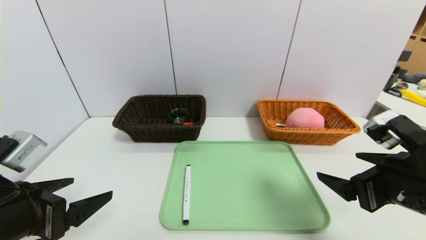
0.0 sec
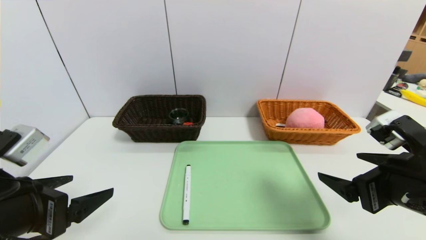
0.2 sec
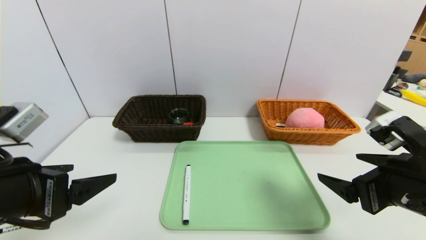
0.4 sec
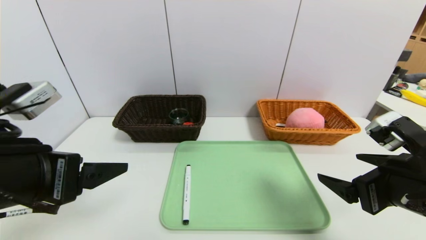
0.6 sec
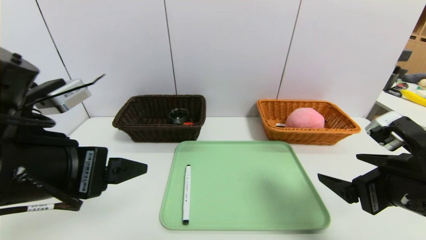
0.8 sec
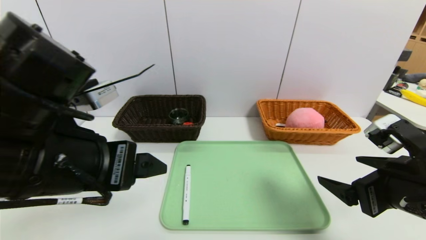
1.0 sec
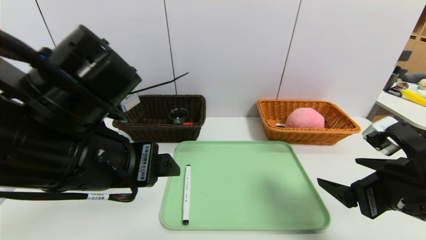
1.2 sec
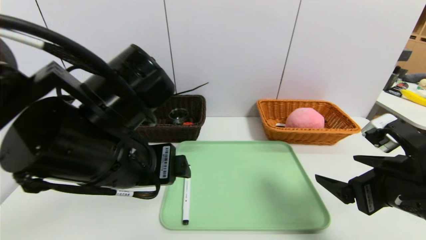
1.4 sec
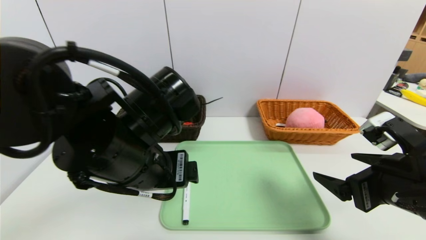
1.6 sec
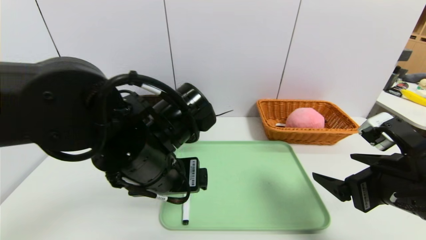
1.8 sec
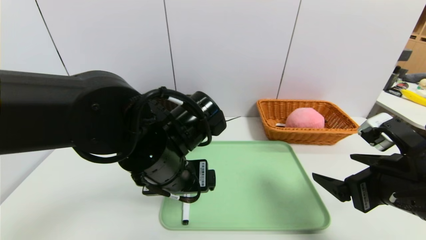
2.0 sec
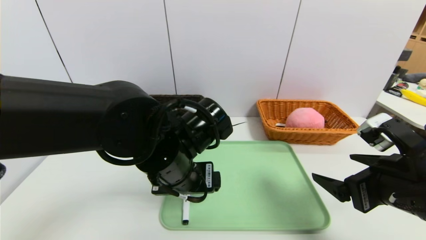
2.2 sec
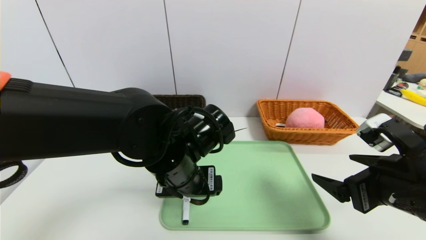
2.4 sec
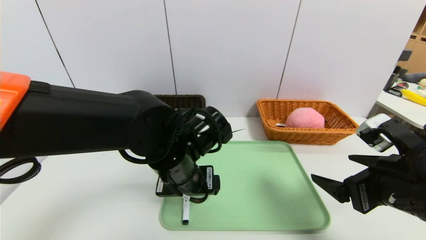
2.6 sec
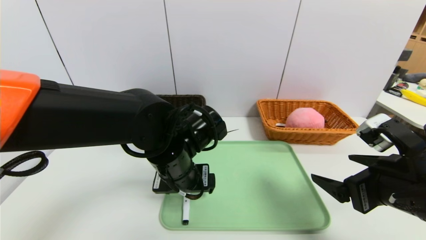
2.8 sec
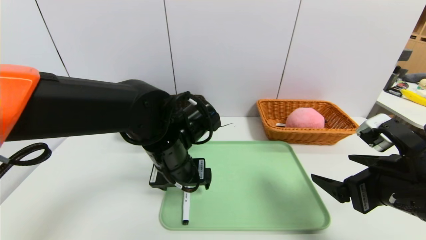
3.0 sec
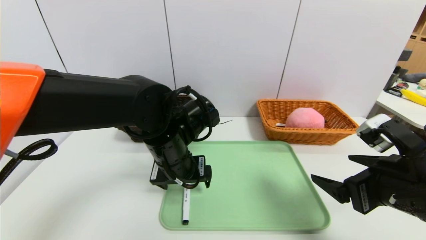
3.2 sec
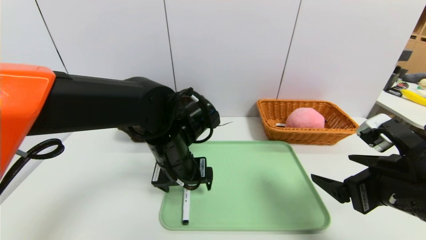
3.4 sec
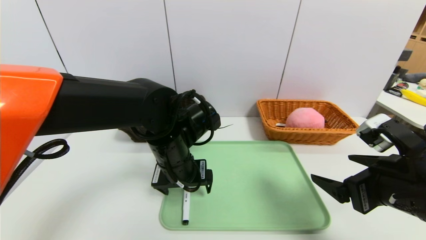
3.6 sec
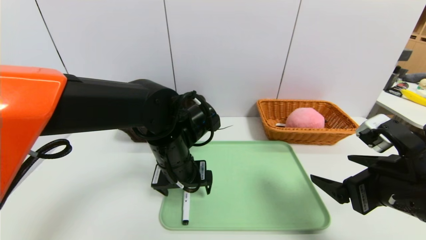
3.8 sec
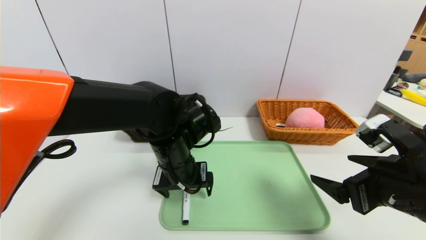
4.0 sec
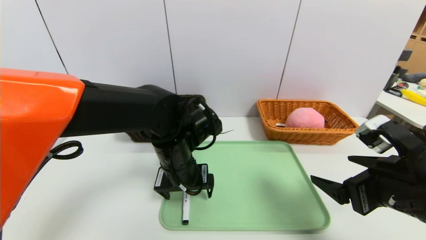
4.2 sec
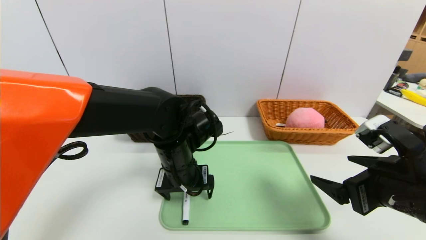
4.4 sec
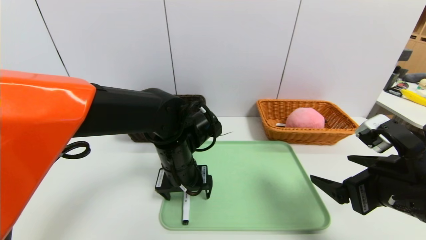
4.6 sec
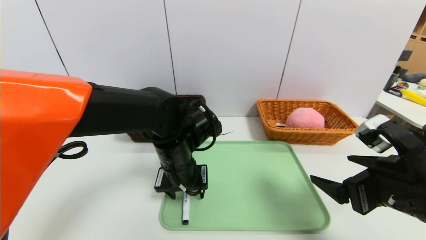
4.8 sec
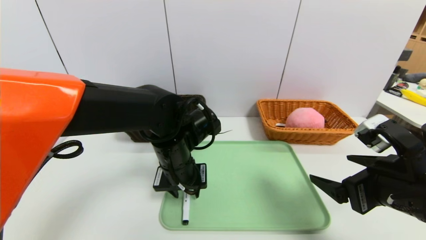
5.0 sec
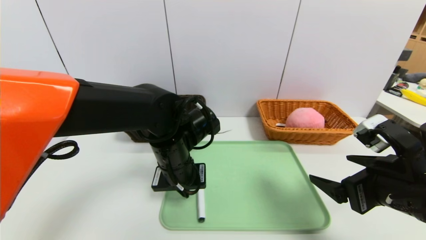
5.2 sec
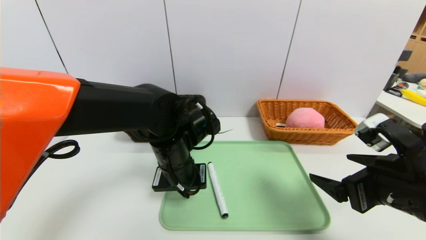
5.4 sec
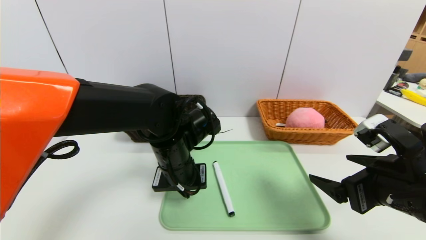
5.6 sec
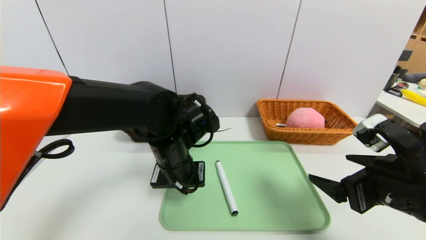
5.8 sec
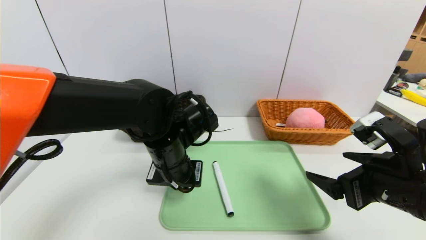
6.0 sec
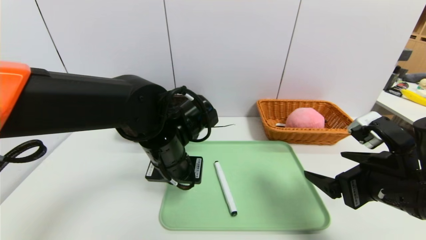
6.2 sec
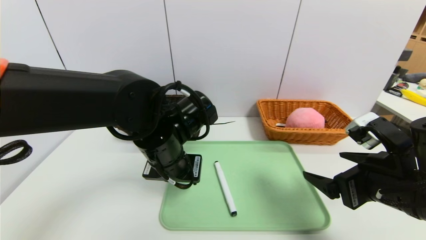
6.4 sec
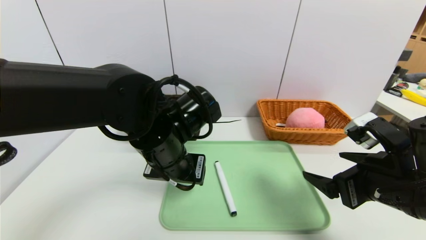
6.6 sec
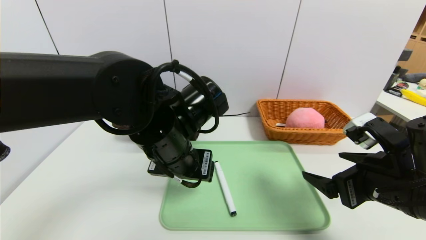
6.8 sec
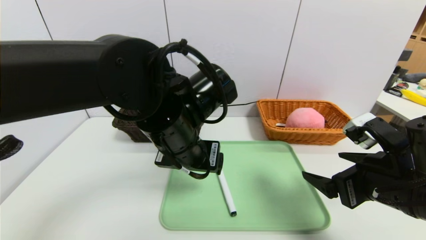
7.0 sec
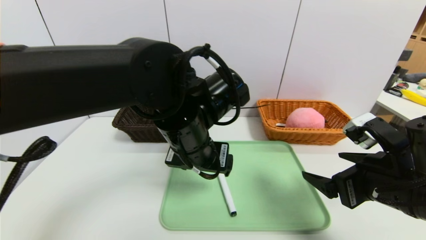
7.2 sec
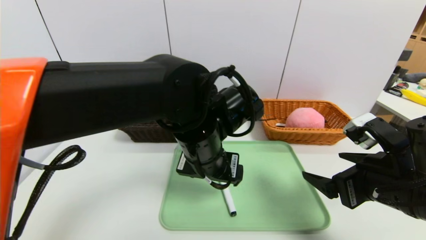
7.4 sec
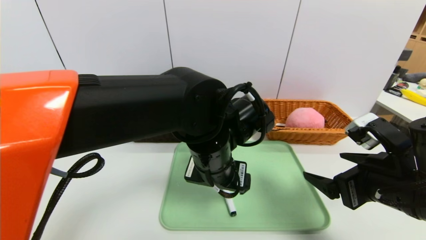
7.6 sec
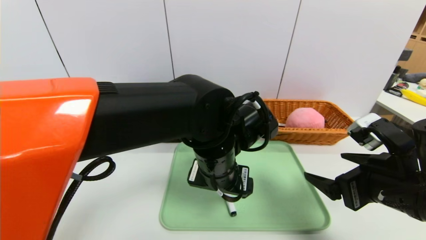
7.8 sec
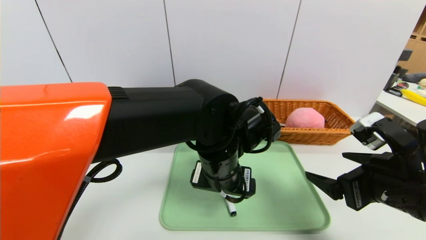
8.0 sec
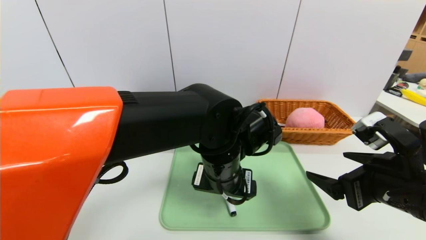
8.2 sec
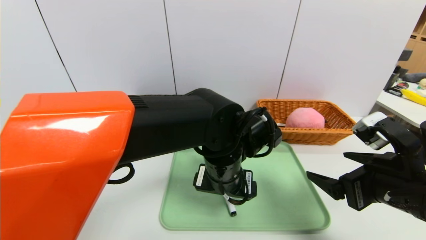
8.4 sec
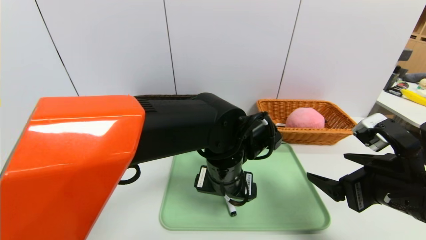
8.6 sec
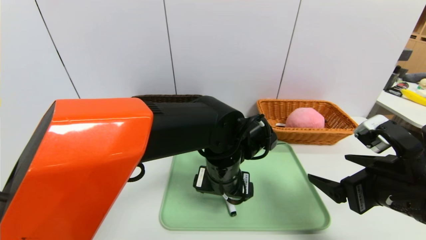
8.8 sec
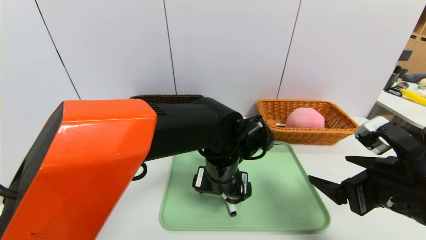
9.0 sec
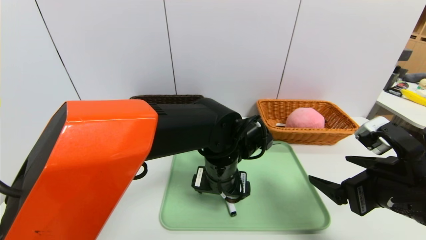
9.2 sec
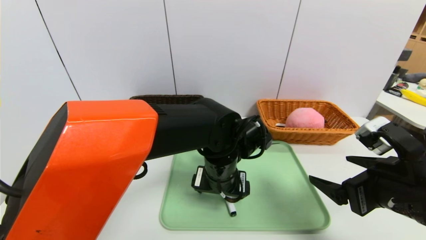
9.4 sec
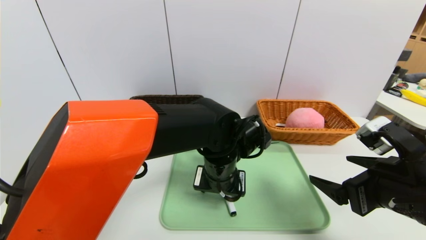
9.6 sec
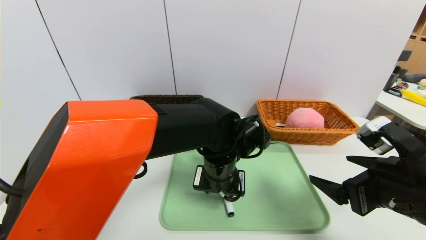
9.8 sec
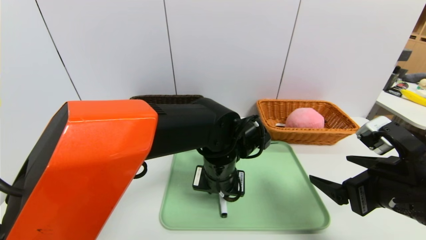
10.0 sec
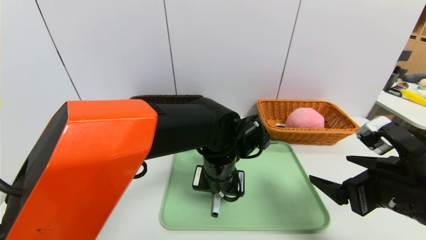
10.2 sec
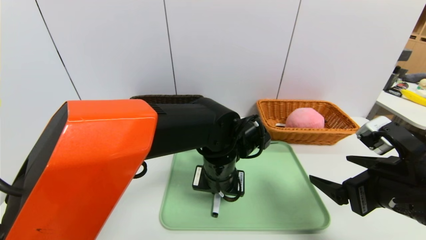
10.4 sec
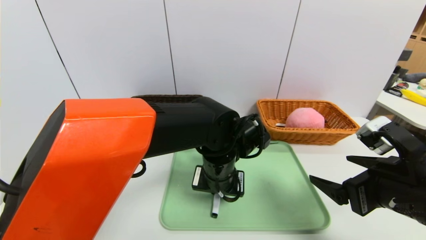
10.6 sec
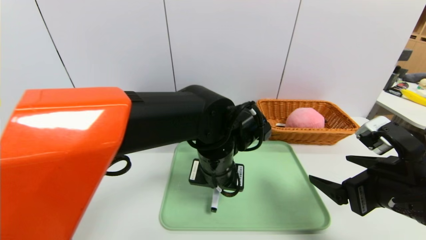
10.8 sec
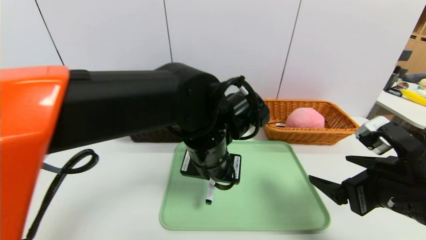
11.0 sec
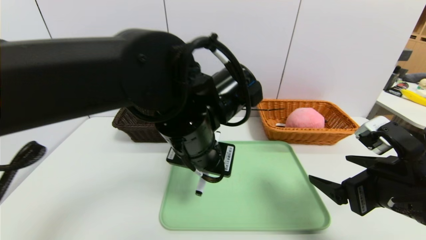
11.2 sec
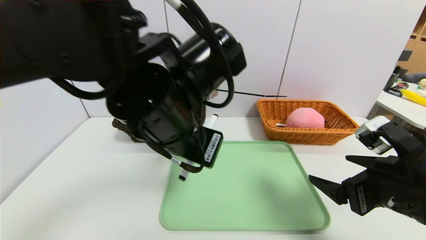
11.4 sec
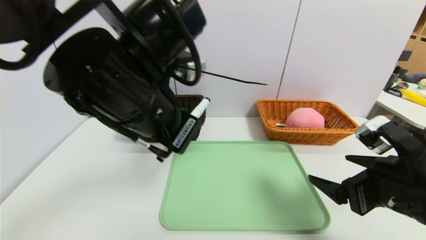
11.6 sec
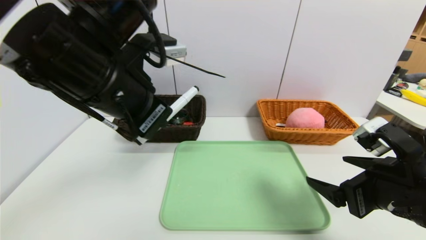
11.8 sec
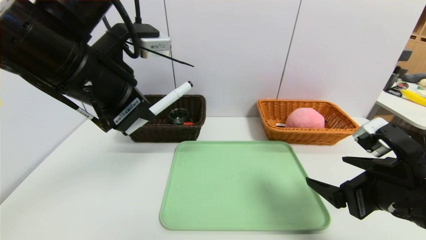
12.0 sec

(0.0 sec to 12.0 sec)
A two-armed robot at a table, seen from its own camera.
Task of the whole recording: place the food in the right basket with the right gripper, and place the non food items in the left basket with the left gripper.
0.0 sec - 1.6 sec: The left gripper goes some 20 cm to the right and forward.
1.6 sec - 3.0 sec: The left gripper travels forward and downward by roughly 10 cm.
3.0 sec - 4.4 sec: There are only small adjustments of the grippers.
4.4 sec - 6.0 sec: The left gripper closes.
6.0 sec - 7.6 sec: The left gripper travels to the right by about 10 cm, and opens its fingers.
7.6 sec - 9.0 sec: The left gripper shifts roughly 5 cm downward.
9.0 sec - 10.4 sec: The left gripper closes.
10.4 sec - 12.0 sec: The left gripper shifts about 25 cm upward and to the left.

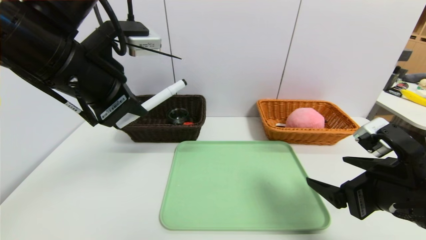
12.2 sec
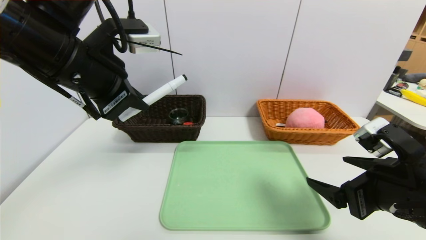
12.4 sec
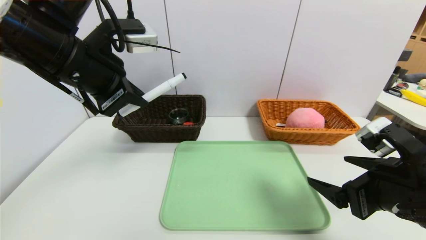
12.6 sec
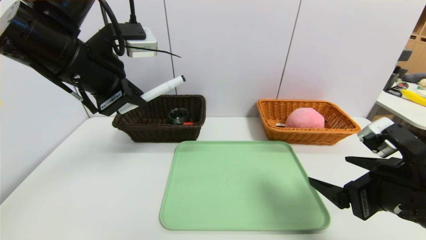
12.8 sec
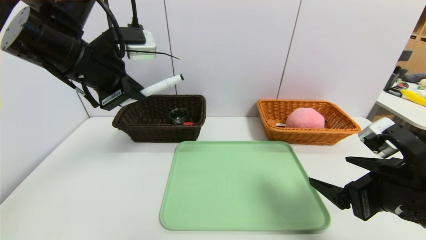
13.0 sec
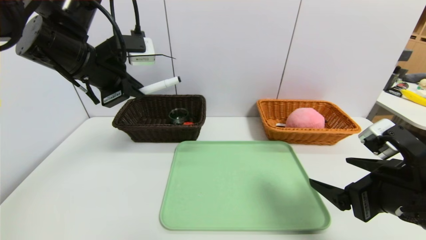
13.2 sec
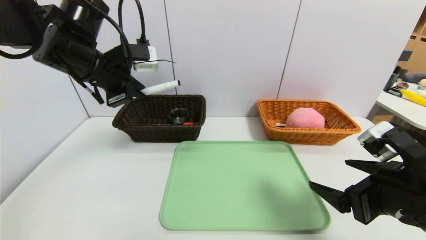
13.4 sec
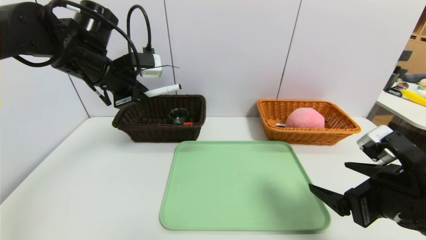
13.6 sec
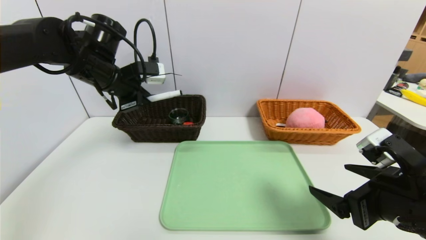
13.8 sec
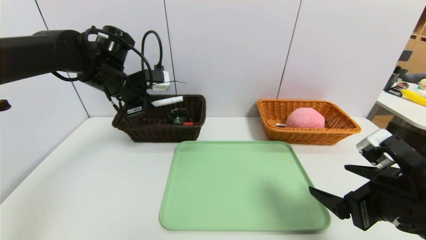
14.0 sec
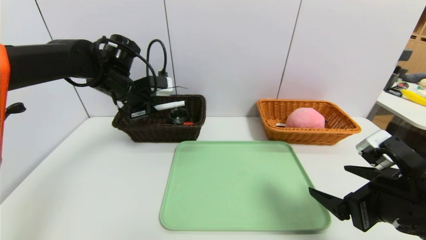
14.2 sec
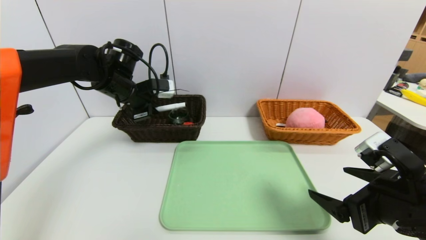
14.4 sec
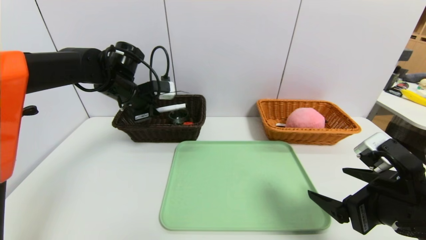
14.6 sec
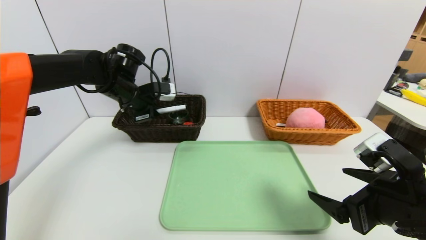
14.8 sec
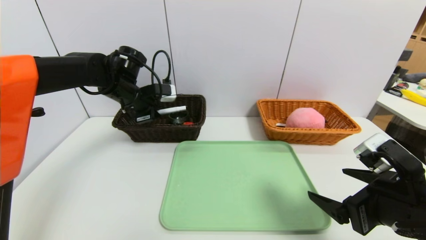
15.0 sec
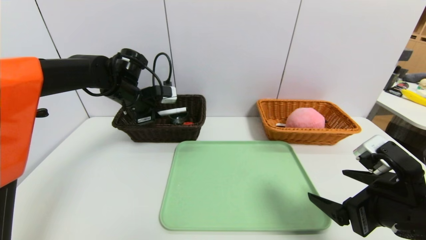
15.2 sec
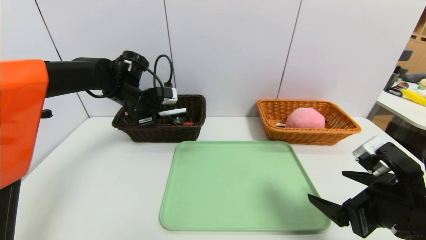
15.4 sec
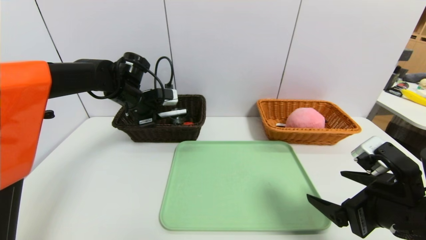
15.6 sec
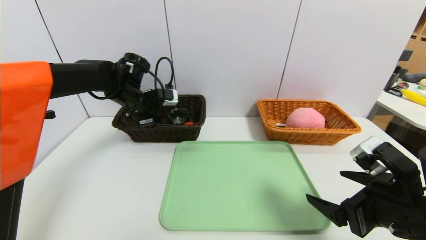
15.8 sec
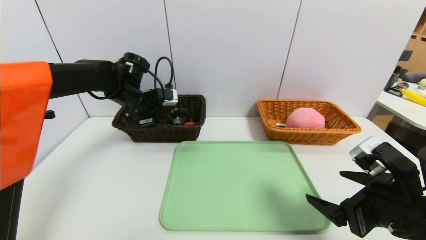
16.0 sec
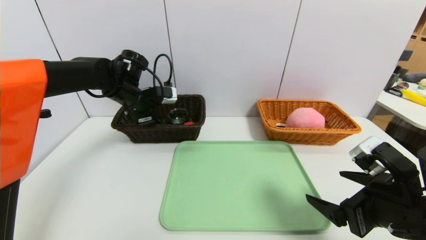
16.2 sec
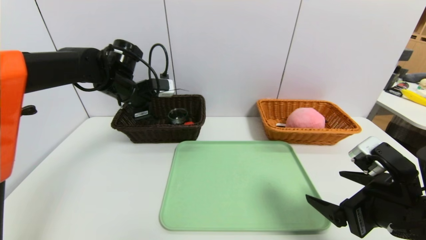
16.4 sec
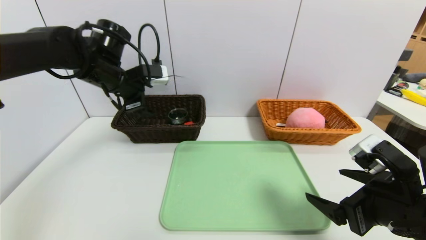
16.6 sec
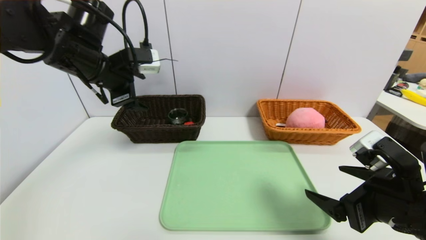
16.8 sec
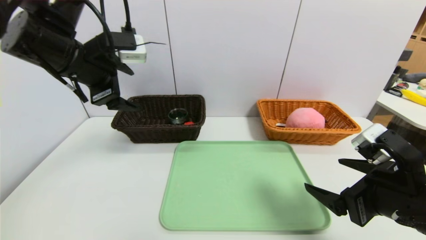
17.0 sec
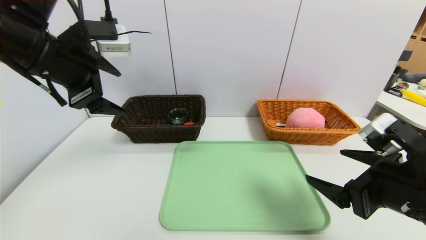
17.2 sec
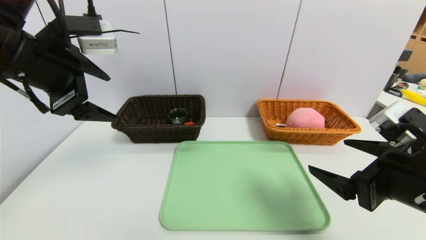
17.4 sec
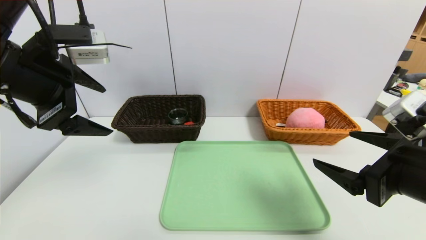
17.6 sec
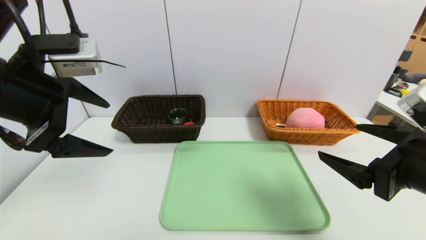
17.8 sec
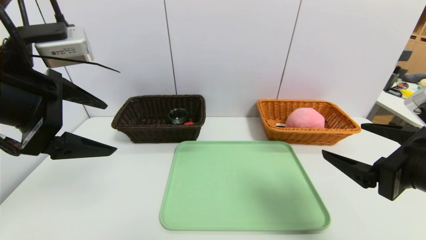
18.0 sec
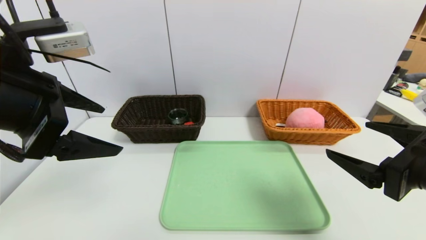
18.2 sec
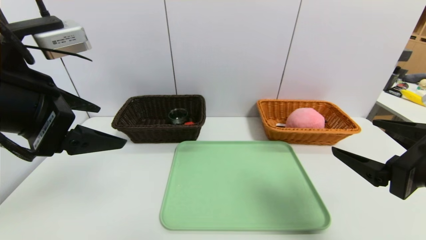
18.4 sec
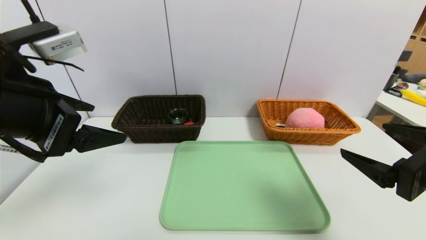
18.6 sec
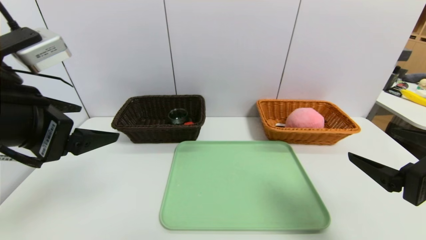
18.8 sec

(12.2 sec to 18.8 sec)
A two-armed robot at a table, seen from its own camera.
Task of the whole recording: place the food in the right basket with the right gripper, and place the non food items in the left basket with the left gripper.
Step, 12.2 sec - 17.6 sec: Grasp the black marker and put it in the left basket.
12.2 sec - 13.8 sec: The left gripper shifts about 15 cm forward and downward.
13.8 sec - 15.4 sec: The left gripper heads downward and forward, covering approximately 10 cm.
15.4 sec - 17.2 sec: The left gripper heads backward and upward, covering some 20 cm, and opens its fingers.
17.2 sec - 18.8 sec: The left gripper heads backward, covering some 10 cm. The right gripper moves roughly 5 cm.
